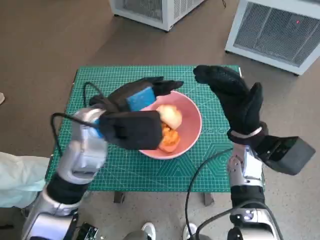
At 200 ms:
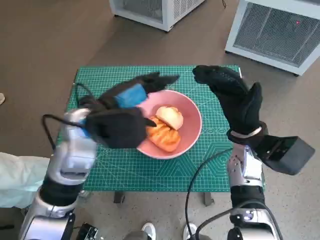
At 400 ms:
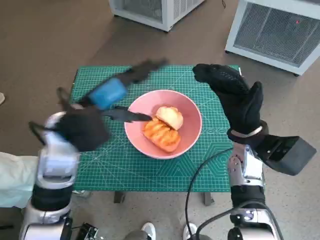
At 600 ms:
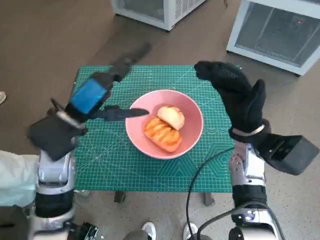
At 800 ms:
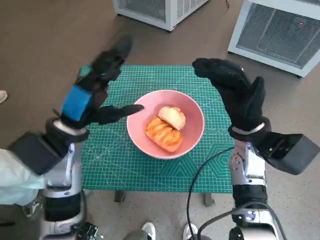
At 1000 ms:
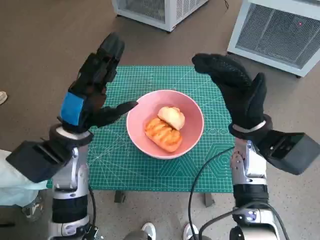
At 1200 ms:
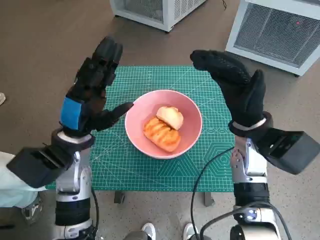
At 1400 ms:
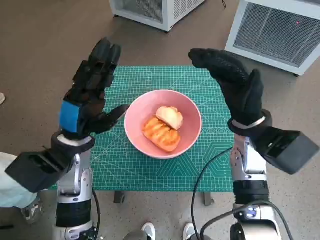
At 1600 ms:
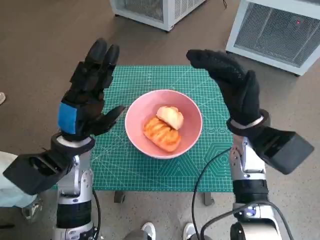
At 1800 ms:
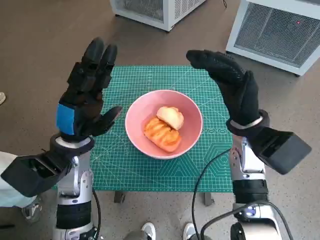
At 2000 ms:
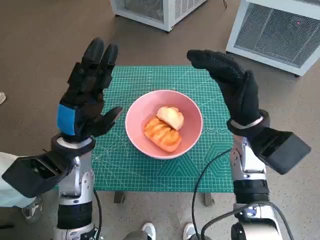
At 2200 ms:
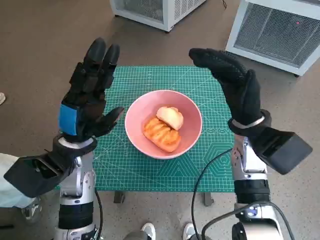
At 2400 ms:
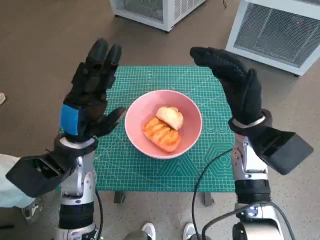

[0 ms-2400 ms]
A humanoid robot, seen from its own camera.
Task of the whole recording: Push the bowl into the center of the table and put the bread into the bowl.
0 ms to 1200 ms: The left hand travels downward and to the left by approximately 10 cm.
1200 ms to 2400 ms: The hands make only small movements.

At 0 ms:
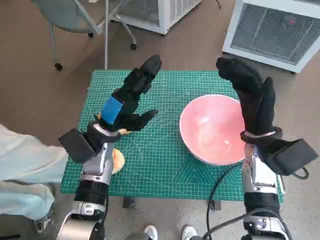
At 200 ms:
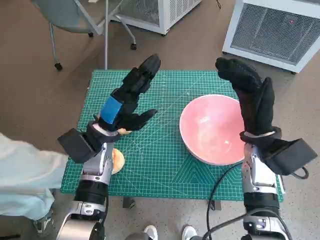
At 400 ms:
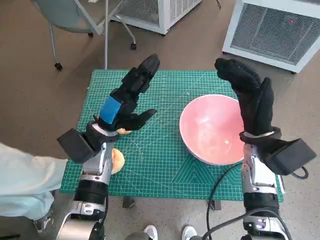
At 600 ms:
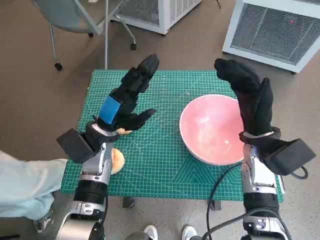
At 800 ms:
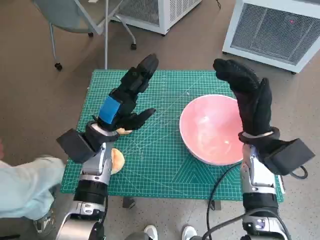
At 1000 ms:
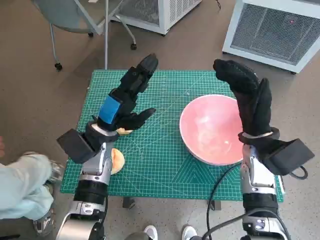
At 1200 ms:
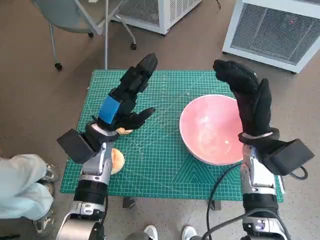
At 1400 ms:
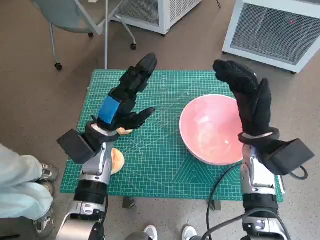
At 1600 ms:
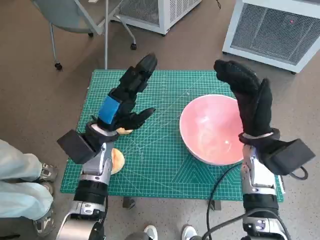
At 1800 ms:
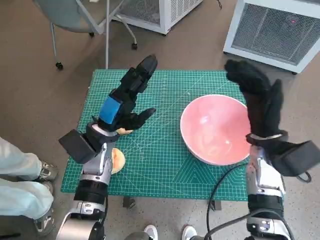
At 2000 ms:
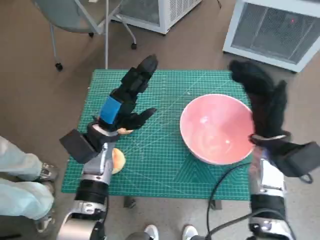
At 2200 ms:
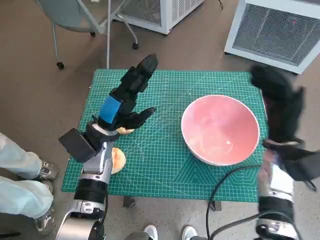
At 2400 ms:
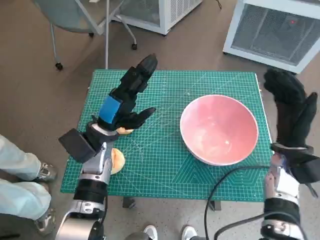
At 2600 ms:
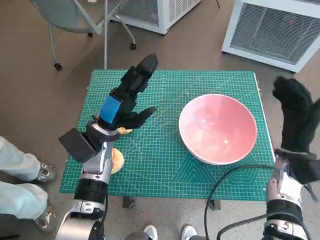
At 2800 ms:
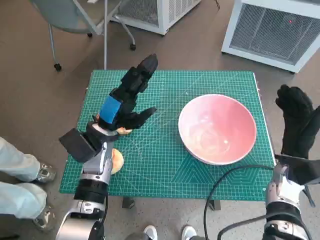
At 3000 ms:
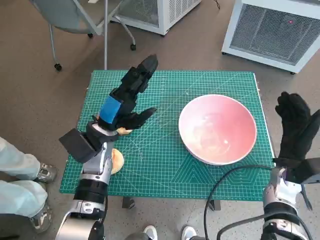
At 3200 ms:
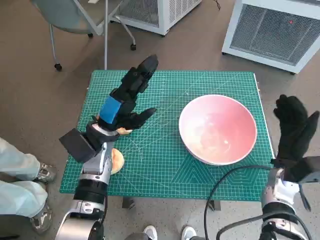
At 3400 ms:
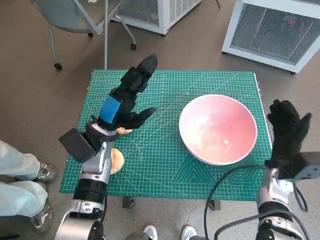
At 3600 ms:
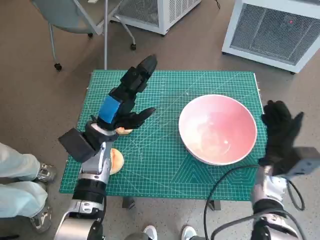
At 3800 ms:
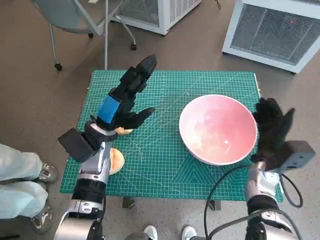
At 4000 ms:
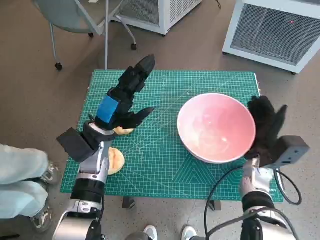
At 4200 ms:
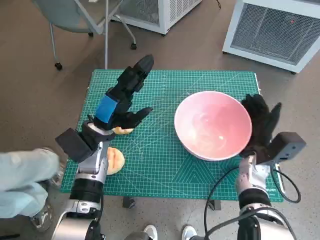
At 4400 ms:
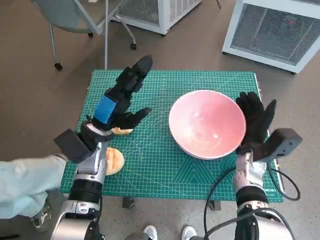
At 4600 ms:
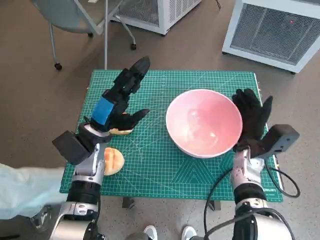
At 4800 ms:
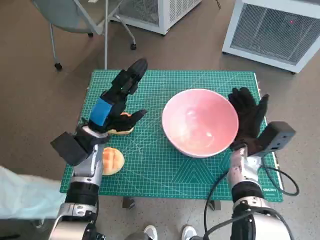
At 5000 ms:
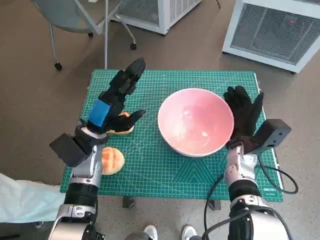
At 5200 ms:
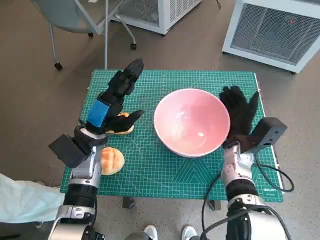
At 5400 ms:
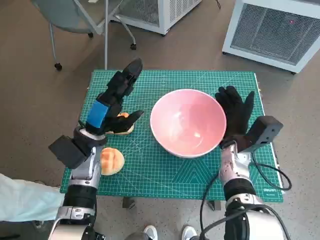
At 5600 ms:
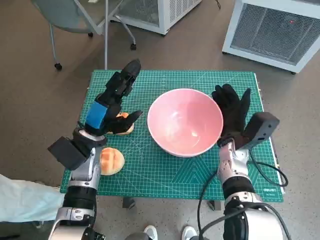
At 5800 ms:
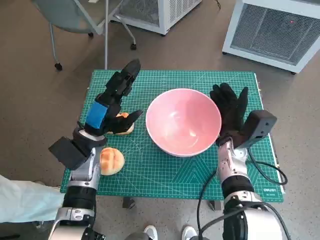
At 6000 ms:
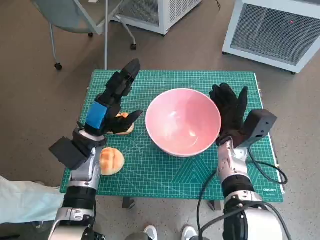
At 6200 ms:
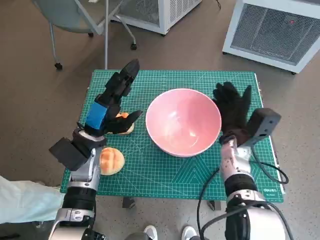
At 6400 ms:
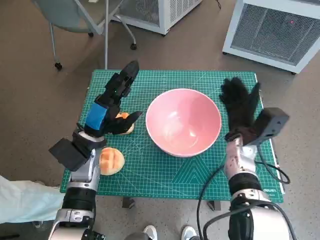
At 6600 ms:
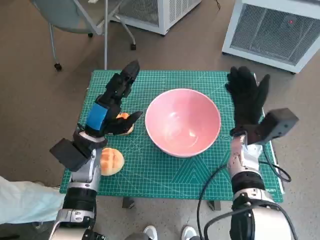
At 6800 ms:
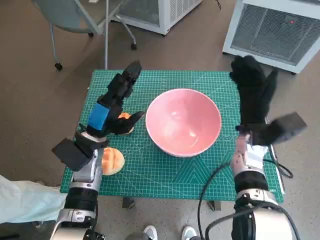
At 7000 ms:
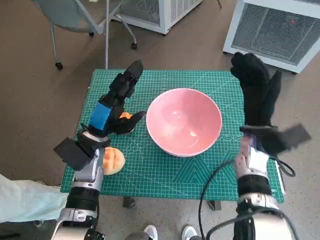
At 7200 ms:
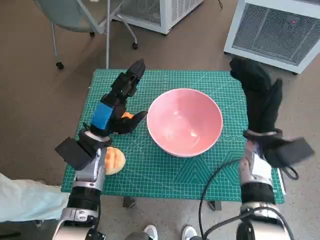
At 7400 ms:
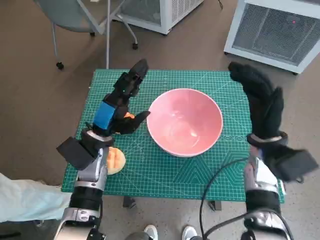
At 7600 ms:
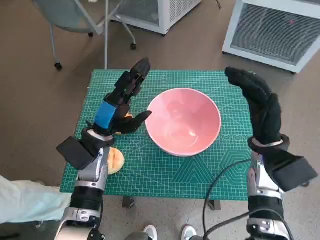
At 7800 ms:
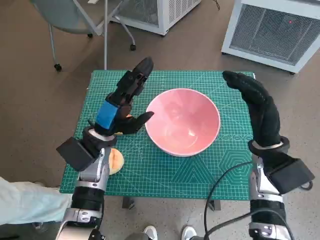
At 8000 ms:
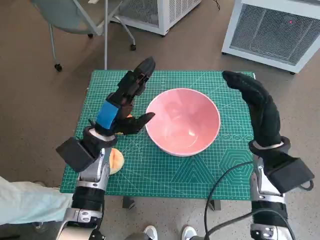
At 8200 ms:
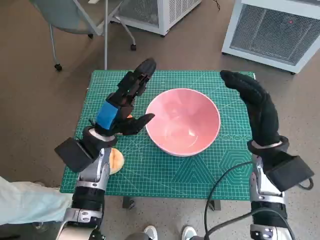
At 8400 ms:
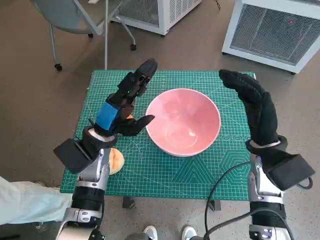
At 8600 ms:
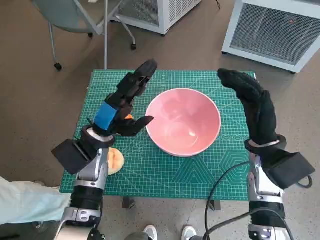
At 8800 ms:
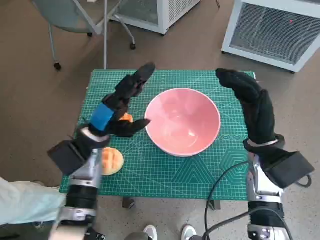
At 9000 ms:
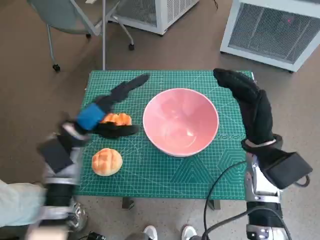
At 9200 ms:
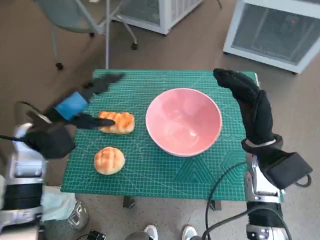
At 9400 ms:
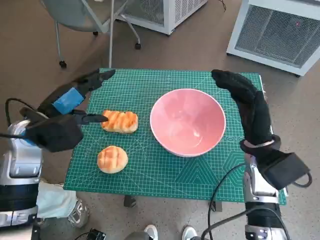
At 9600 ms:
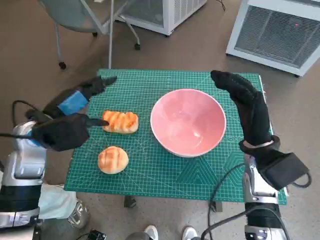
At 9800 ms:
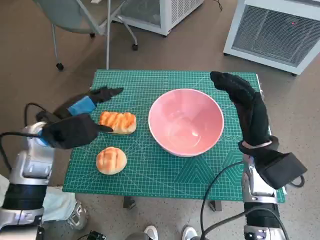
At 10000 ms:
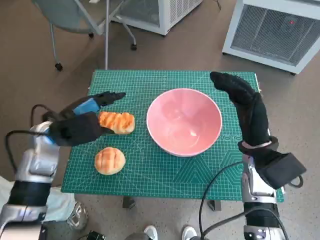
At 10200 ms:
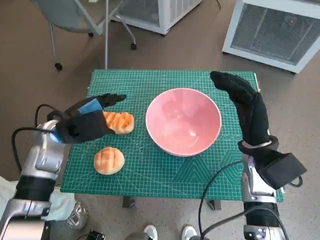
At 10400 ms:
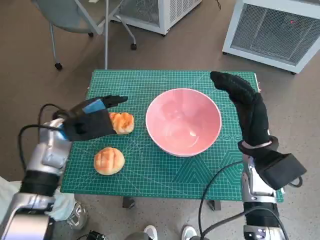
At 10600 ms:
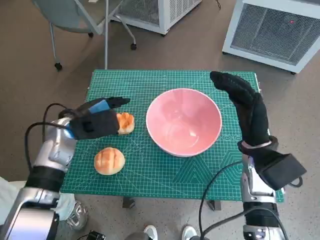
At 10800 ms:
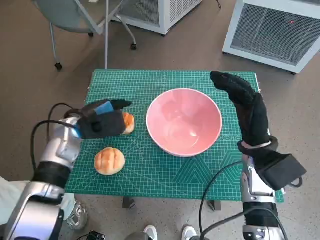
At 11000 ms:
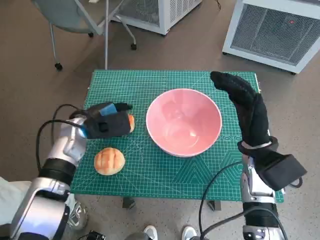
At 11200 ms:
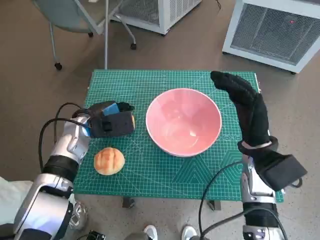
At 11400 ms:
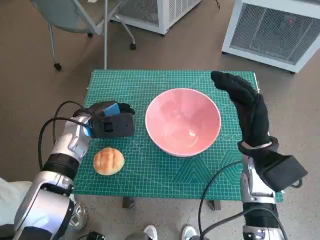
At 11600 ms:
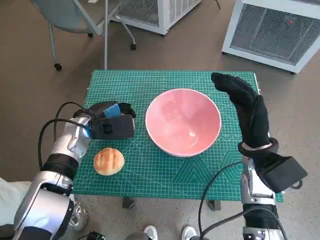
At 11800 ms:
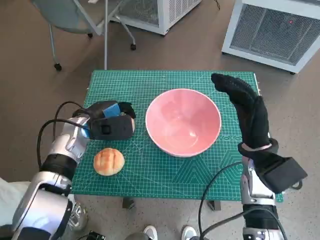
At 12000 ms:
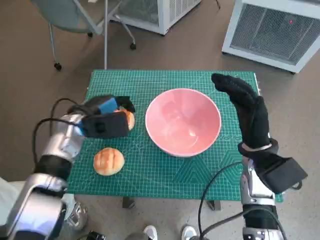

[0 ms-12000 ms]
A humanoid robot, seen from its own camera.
Task of the whole recording: Push the bowl into the center of the table and put the bread into the bowl.
Step, 0 ms to 6200 ms: Move the pink bowl to the center of table with right hand.
Step, 6400 ms to 11600 ms: Grasp the long bread with left hand.
1600 ms to 3000 ms: The right hand goes about 10 cm to the right and downward.
3000 ms to 4400 ms: The right hand travels to the left by about 5 cm.
4400 ms to 6000 ms: The right hand moves about 5 cm.
6000 ms to 7600 ms: The right hand is displaced upward by roughly 5 cm.
7600 ms to 9000 ms: The left hand shifts by roughly 5 cm.
10400 ms to 12000 ms: The hands move only a little.

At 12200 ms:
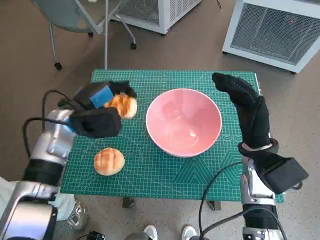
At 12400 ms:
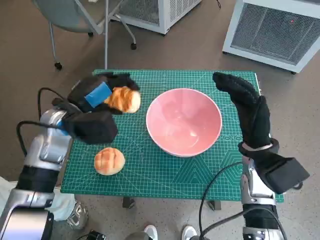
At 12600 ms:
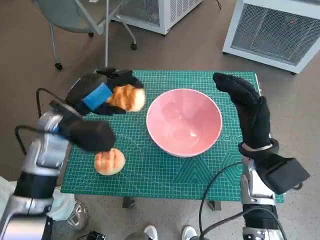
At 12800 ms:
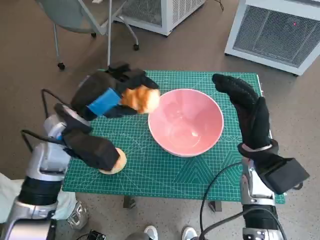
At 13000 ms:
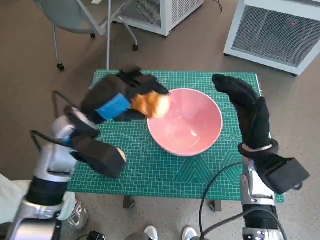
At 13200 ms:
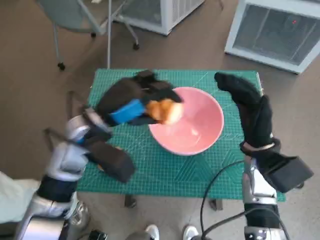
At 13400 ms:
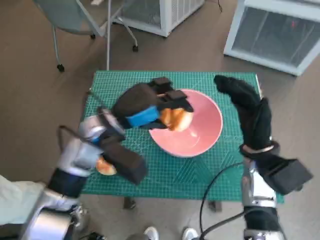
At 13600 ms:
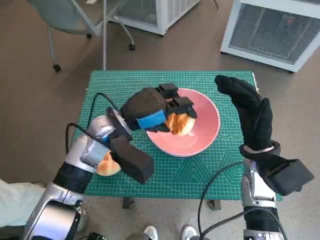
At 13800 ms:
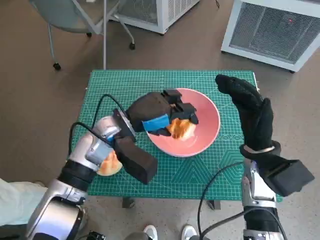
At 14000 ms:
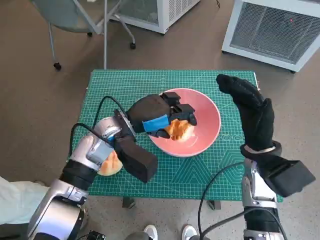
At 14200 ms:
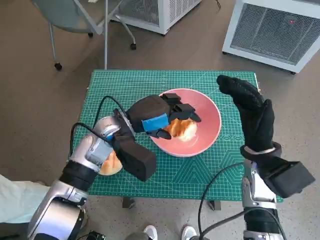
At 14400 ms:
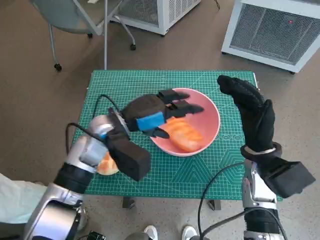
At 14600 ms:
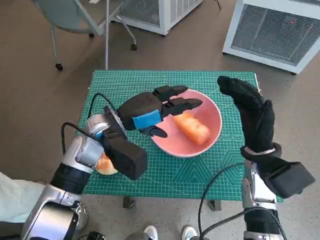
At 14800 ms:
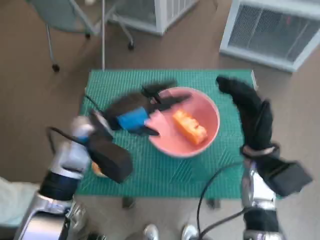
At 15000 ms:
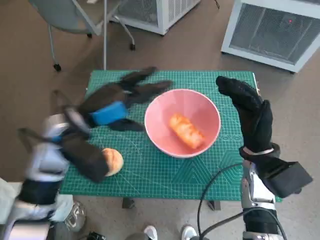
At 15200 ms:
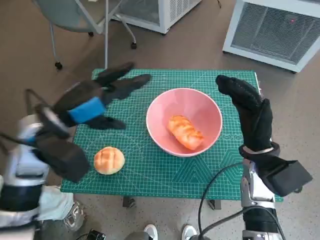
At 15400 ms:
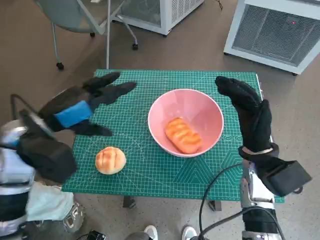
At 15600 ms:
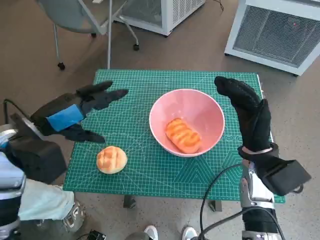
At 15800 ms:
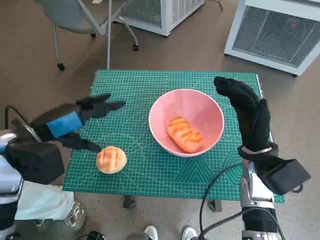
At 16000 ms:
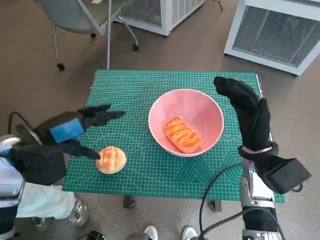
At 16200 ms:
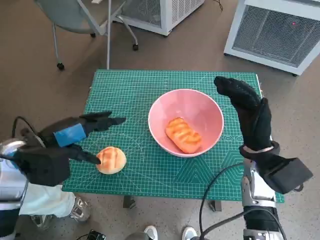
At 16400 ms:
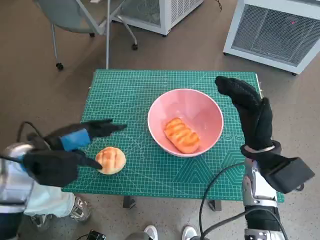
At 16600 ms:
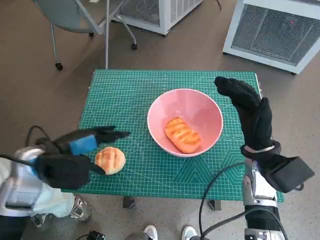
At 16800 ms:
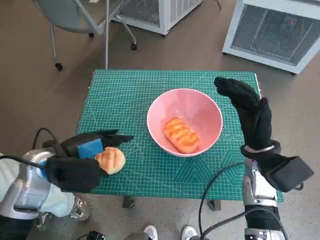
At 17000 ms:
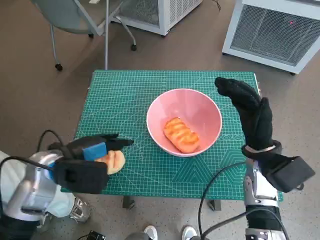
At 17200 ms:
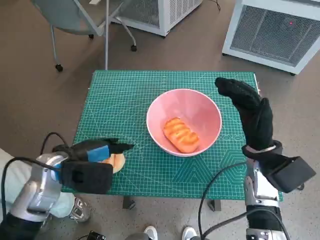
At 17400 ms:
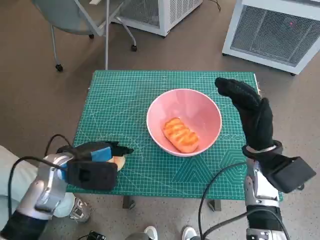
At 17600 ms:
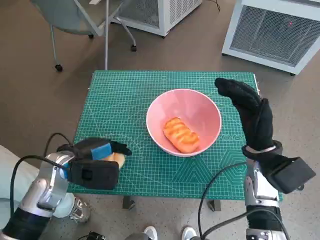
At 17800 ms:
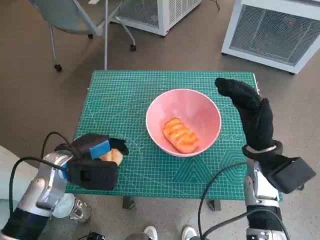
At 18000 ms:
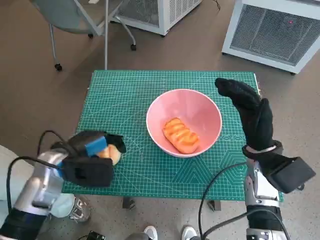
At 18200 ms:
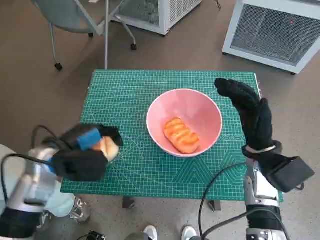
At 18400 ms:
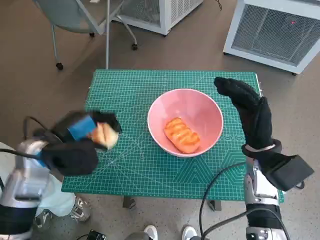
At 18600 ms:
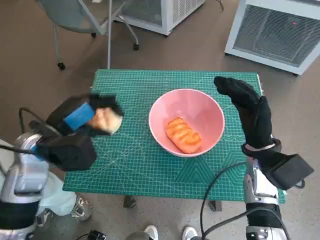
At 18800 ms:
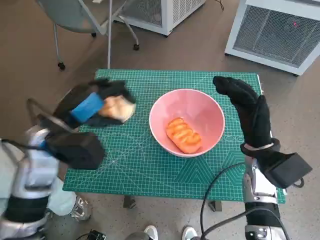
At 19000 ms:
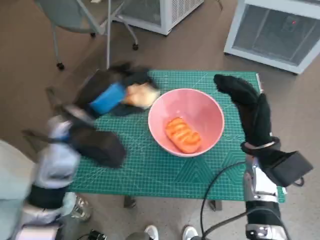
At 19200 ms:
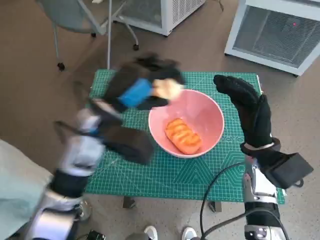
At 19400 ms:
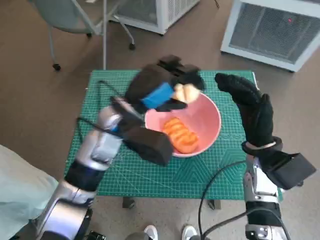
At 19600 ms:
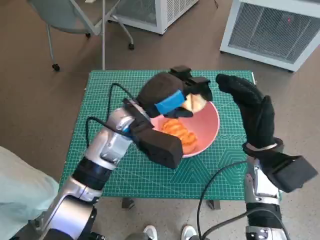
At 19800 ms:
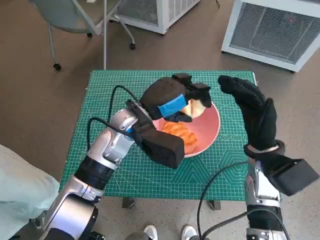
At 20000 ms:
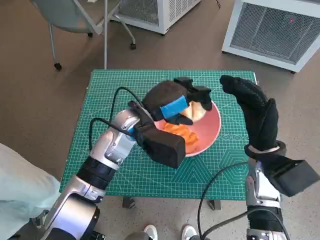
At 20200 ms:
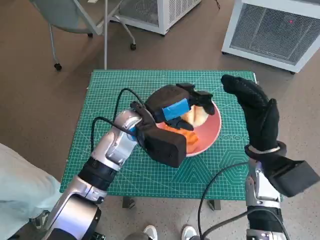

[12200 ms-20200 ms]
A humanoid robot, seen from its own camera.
Task of the whole recording: Push the bowl into the center of the table and put the bread into the bowl.
Step, 12200 ms to 14400 ms: Place the long bread in pink bowl with left hand.
Step, 14600 ms to 17600 ms: Grasp the round bread with left hand.
12200 ms to 13800 ms: The left hand shifts roughly 10 cm to the right.
13800 ms to 15400 ms: The left hand moves to the left and upward, approximately 15 cm.
15400 ms to 17000 ms: The left hand is displaced downward by about 5 cm.
18600 ms to 20200 ms: The left hand is displaced to the right by some 15 cm.
